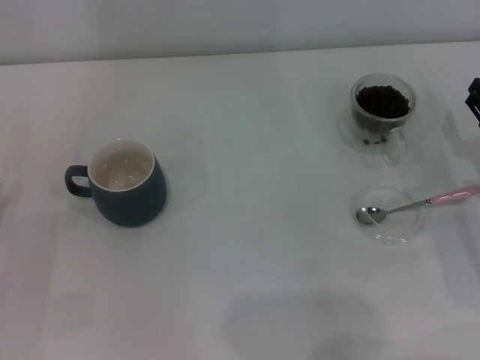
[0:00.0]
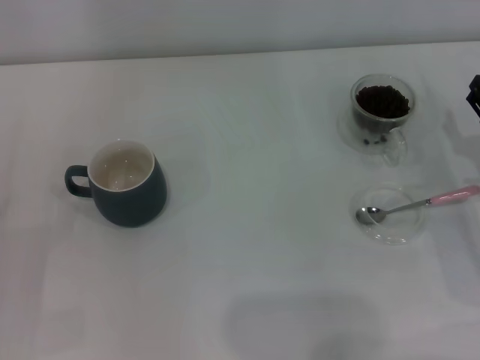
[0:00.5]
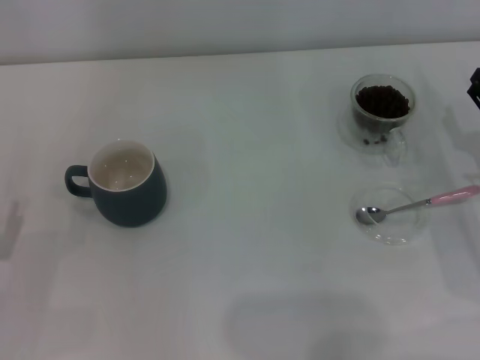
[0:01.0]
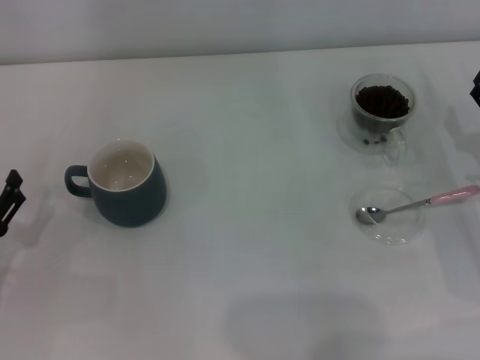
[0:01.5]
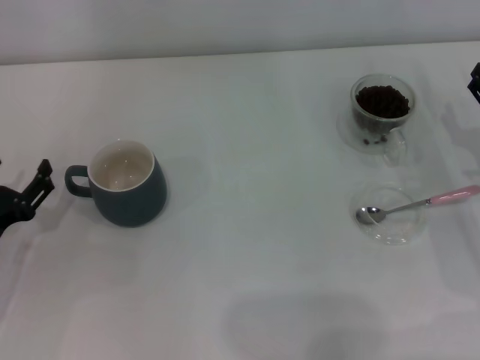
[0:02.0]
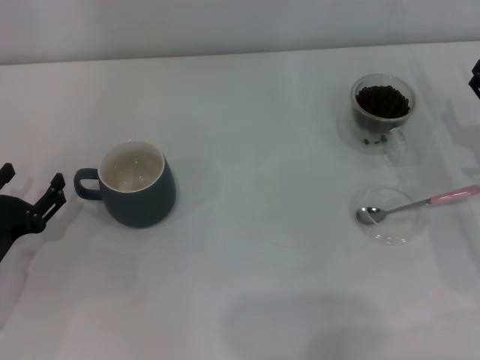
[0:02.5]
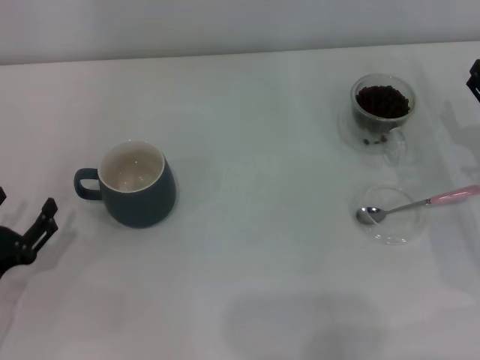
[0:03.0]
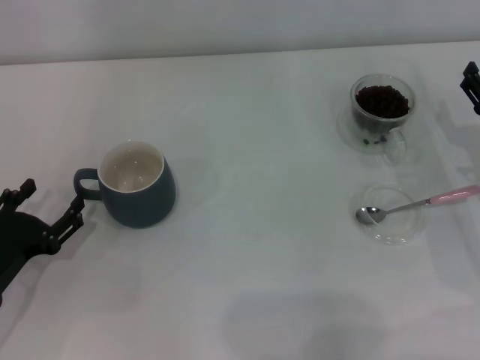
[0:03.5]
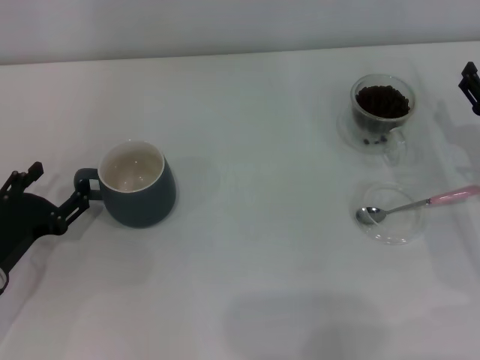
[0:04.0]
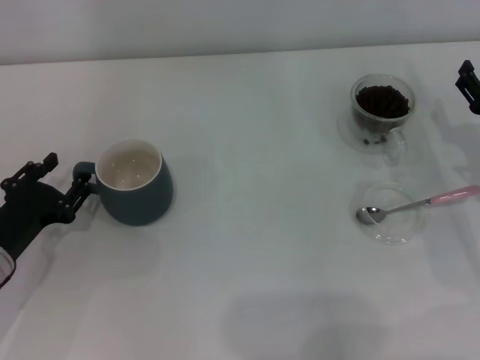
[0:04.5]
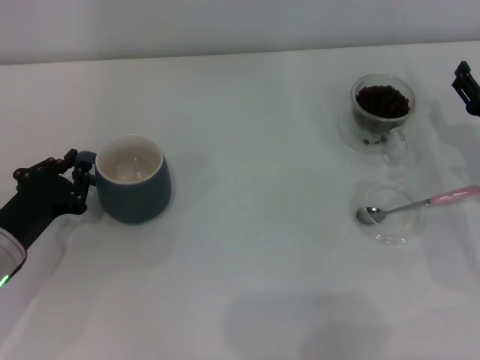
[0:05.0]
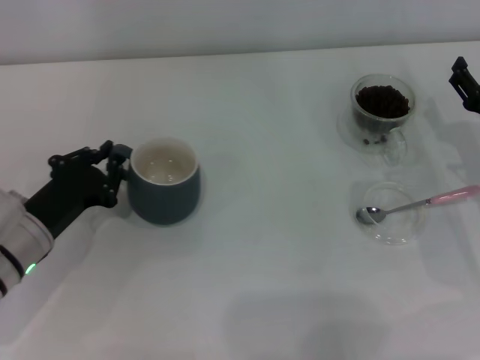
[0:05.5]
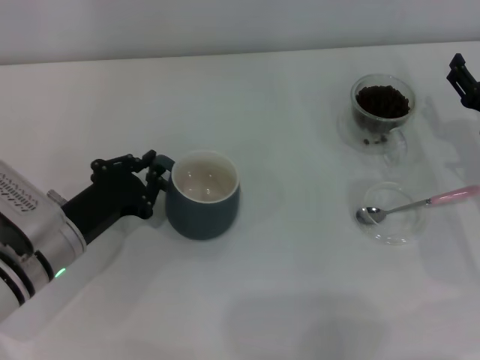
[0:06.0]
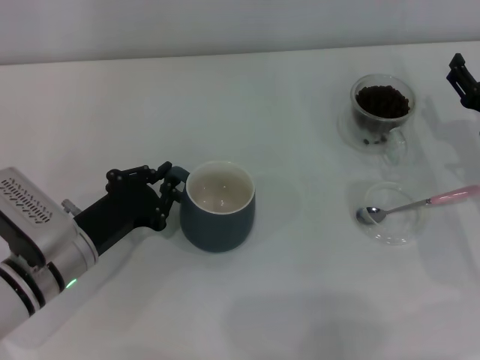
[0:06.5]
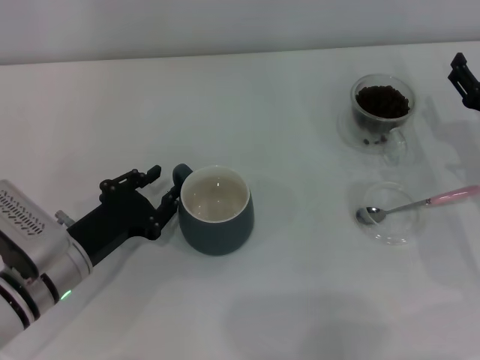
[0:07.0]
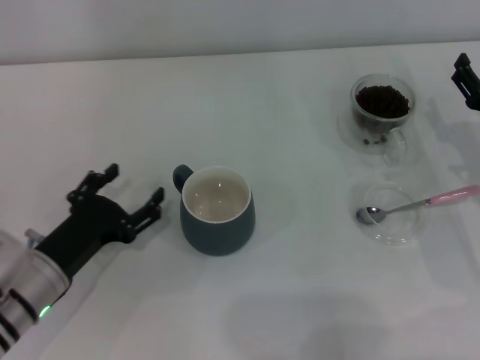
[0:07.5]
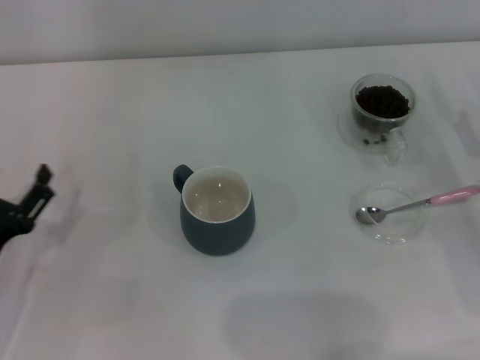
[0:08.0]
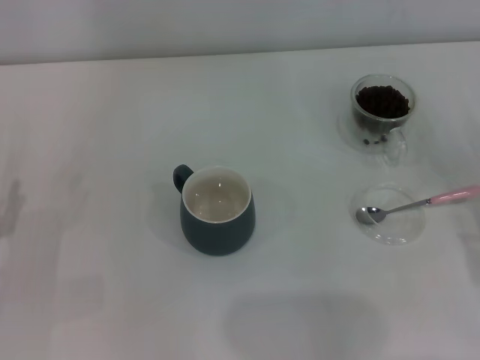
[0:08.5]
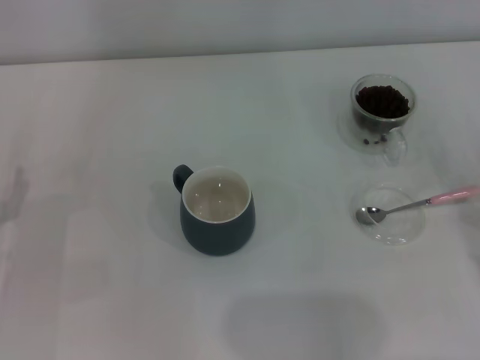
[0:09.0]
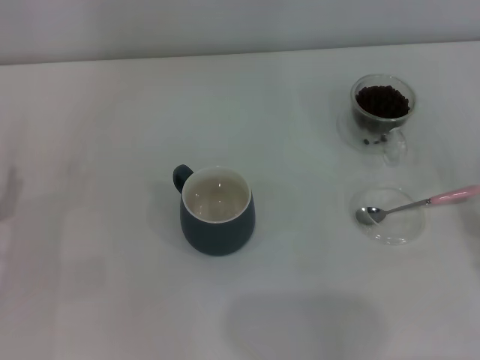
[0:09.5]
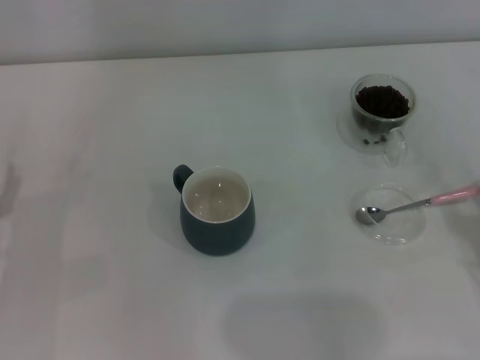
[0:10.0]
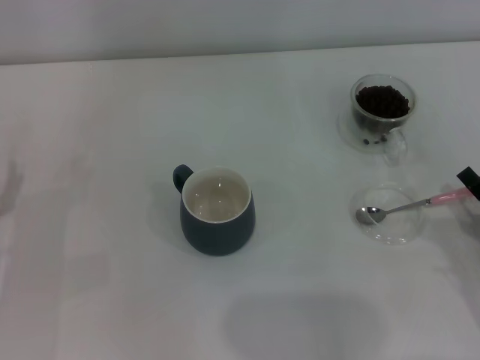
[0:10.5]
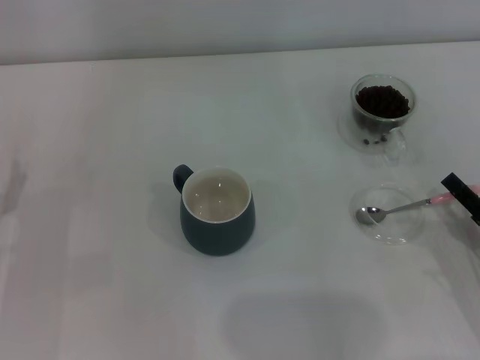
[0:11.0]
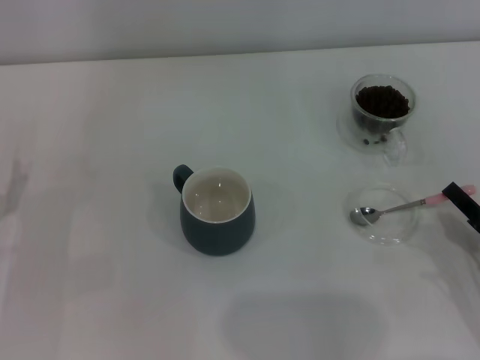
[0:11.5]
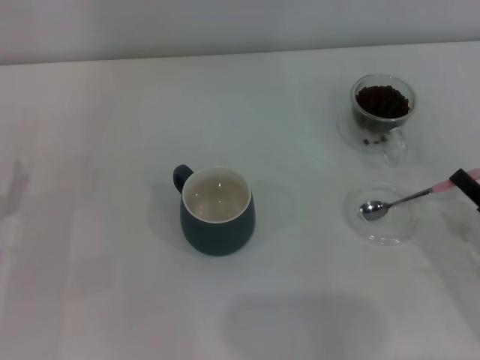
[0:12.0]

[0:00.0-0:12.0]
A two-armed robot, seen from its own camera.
Task of the whole recording: Use a pink spoon to take out the coffee beans from the glass and pour them into the gray cup.
Step, 0:00.0 to 0:07.5: Move the cup to the center of view with the left gripper.
0:00.0 to 0:02.0: The left gripper ends up some 5 cm from where it was.
0:02.0 to 0:04.0: The grippers stay close to where they were, moving slightly.
0:04.0 to 0:06.0: The left gripper moves to the right, about 5 cm, and closes.
0:06.0 to 0:08.0: The left gripper heads to the left and backward, covering roughly 10 cm, and opens up.
0:10.0 to 0:12.0: The right gripper closes.

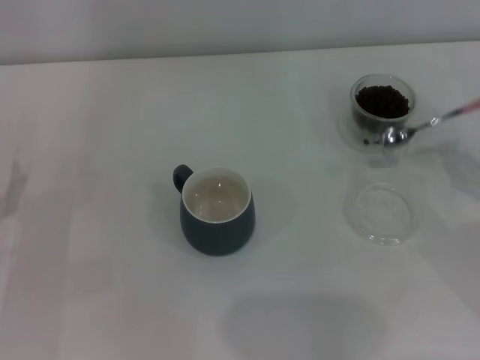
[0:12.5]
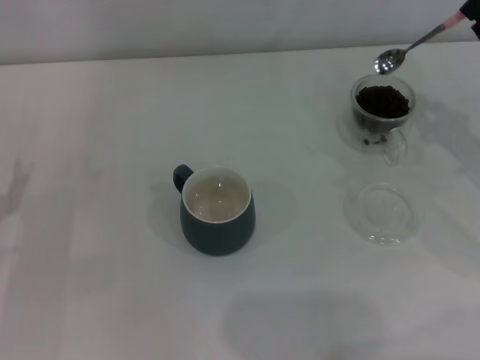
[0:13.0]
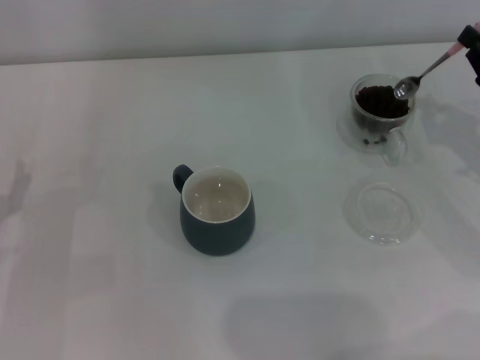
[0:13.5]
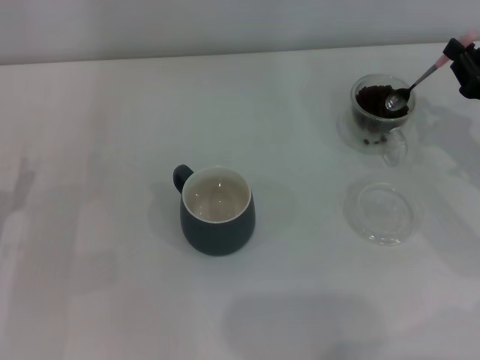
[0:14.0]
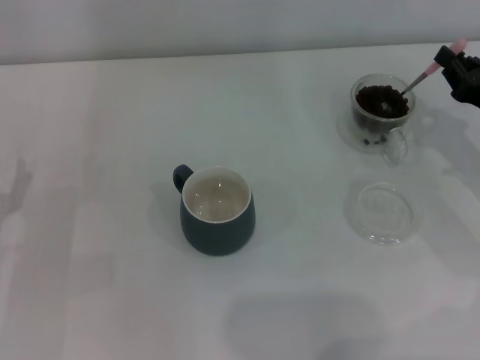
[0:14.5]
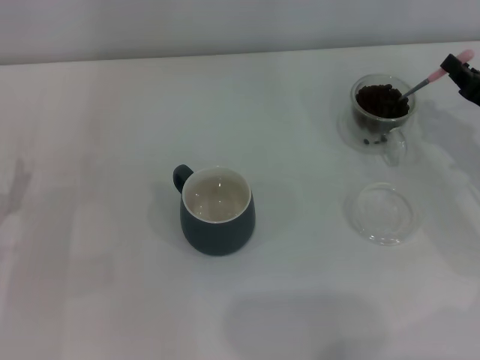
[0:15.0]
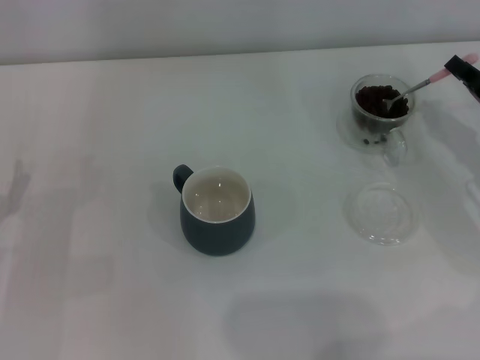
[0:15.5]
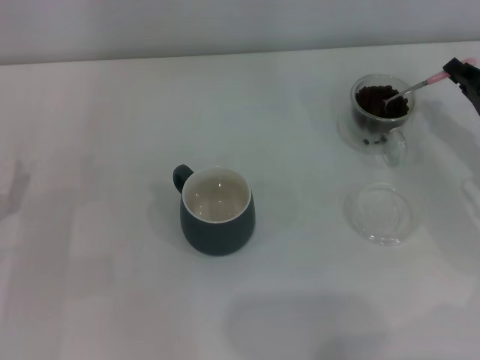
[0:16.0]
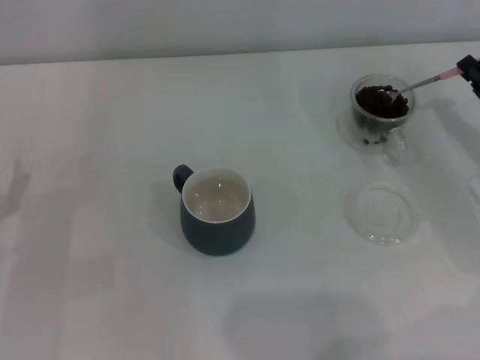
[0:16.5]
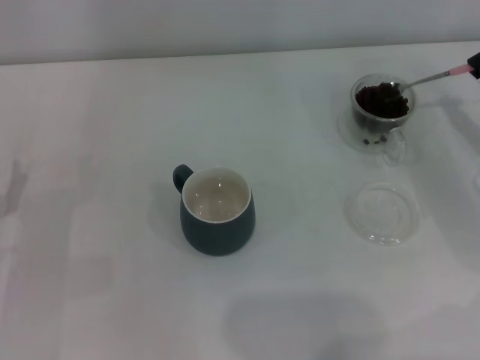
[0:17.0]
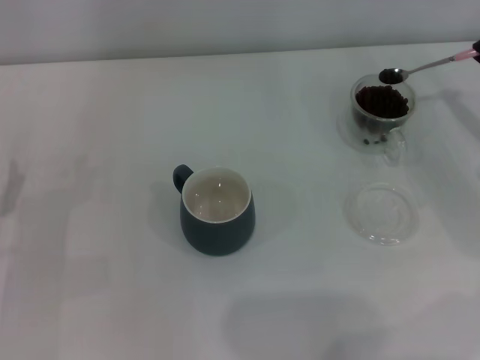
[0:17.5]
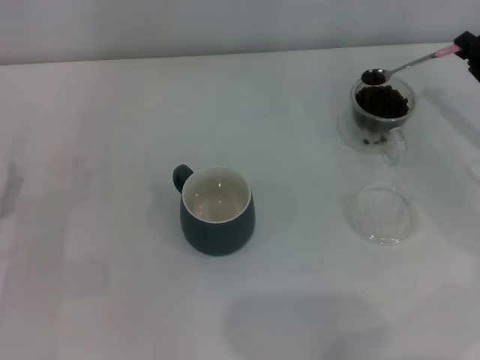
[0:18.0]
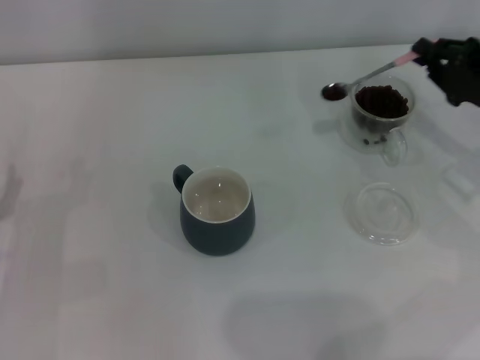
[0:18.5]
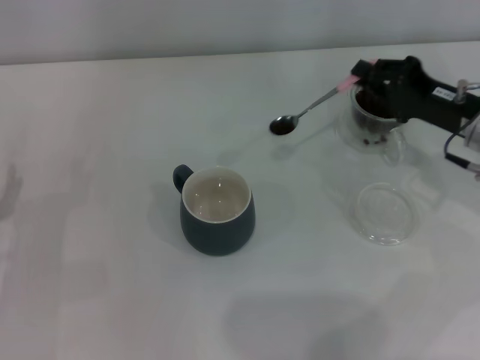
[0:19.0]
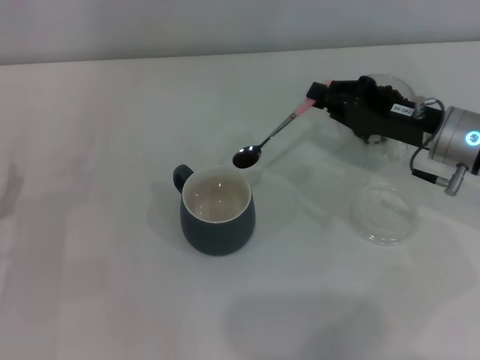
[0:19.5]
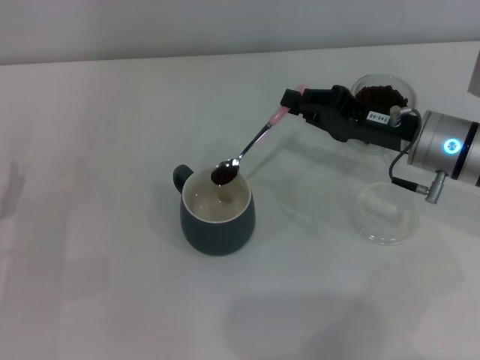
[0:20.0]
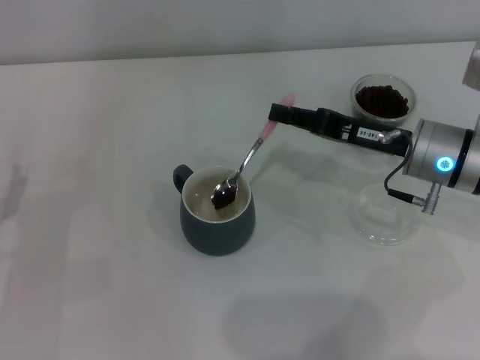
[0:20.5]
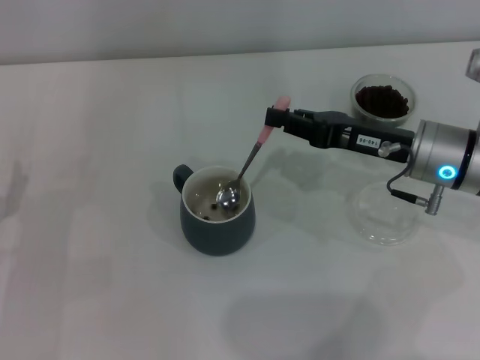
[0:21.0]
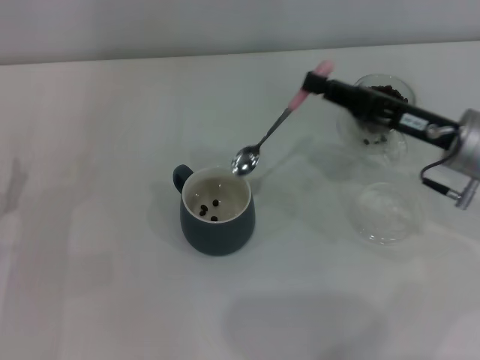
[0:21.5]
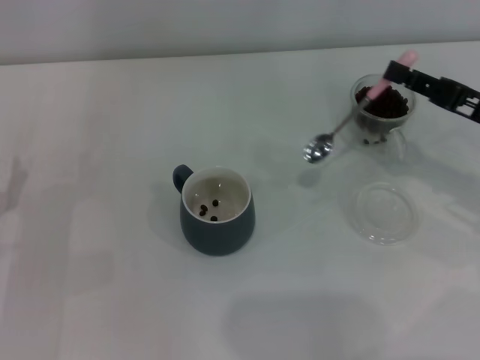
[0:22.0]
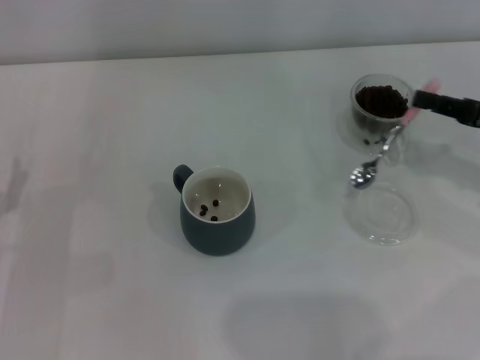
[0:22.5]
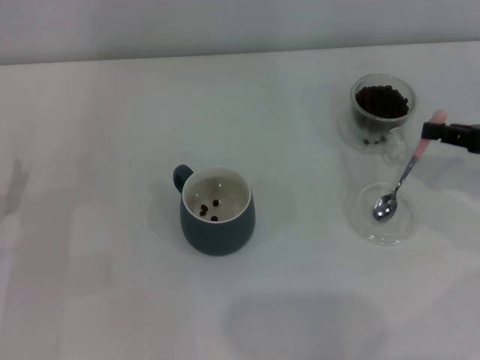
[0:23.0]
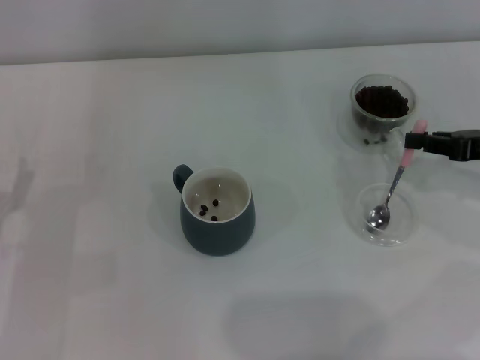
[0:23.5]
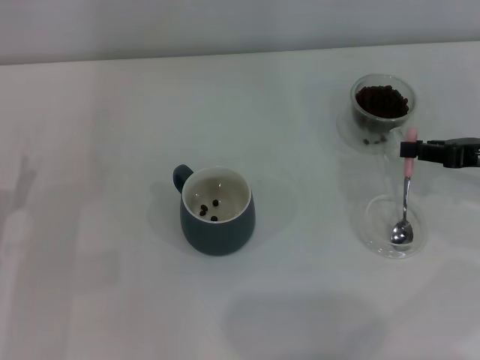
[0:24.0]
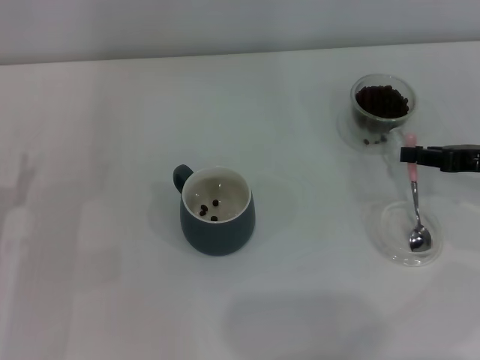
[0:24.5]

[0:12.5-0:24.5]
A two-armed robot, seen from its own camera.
Task of the whole recording: Use a pink spoon to take out the coffee beans from the glass and pour them into the gray cup.
Step, 0:12.5 to 0:21.5: Scoop a spoonful of beans into the cup with the right gripper.
0:12.5 to 0:14.5: The right gripper is displaced forward by some 10 cm.
0:16.5 to 0:18.5: The grippers move only a little.
0:18.5 to 0:20.5: The right gripper goes approximately 10 cm to the left.
0:20.5 to 0:22.5: The right gripper is displaced to the right by roughly 15 cm.
0:22.5 to 0:24.5: The grippers make only small movements.

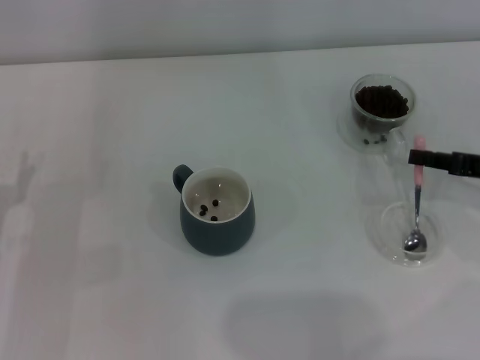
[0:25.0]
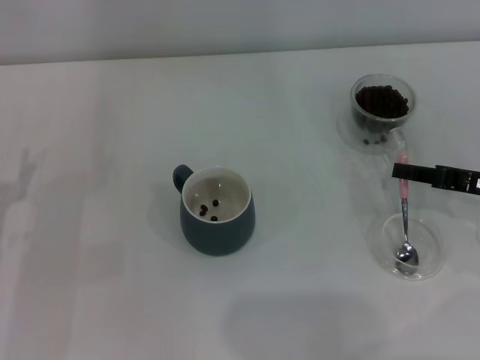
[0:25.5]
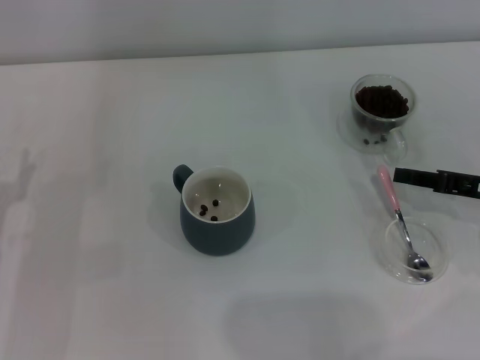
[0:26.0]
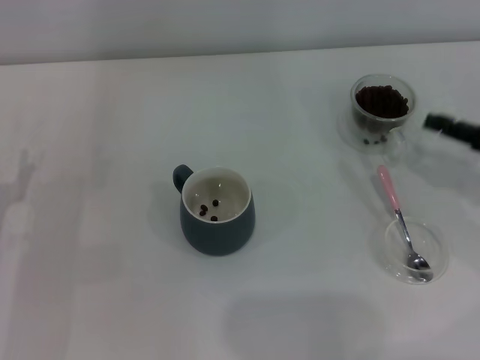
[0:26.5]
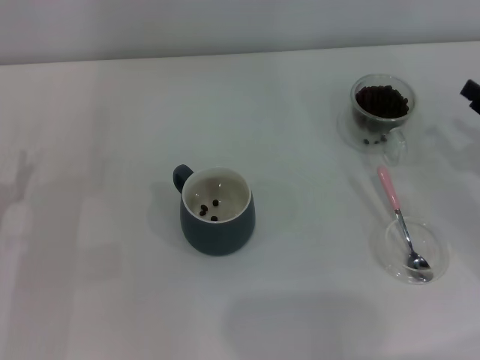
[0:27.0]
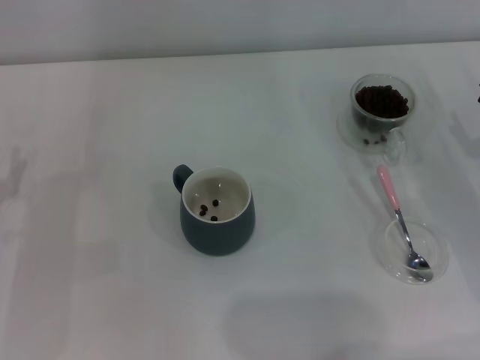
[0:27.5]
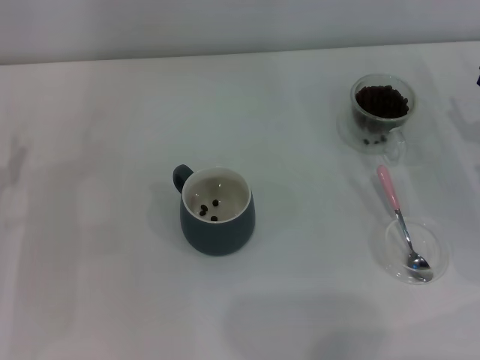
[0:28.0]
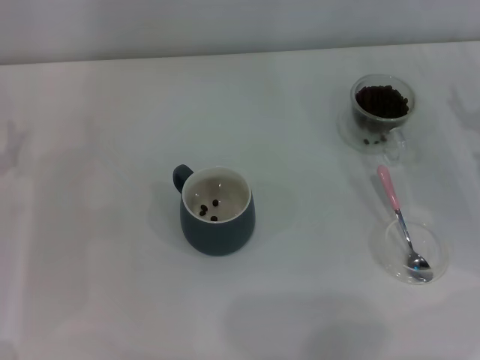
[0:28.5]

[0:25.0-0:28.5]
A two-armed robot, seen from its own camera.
Task of the whole recording: Use a pink spoon to take out the coffee beans from the glass and pour them into the gray cup.
0:25.0 to 0:27.0: The right gripper opens.
